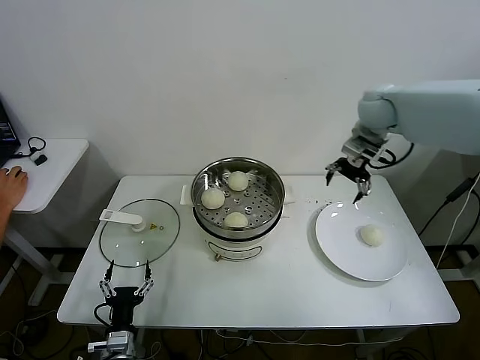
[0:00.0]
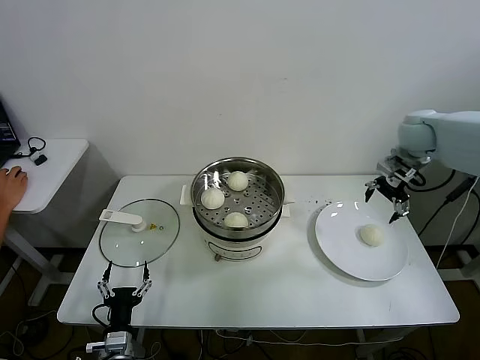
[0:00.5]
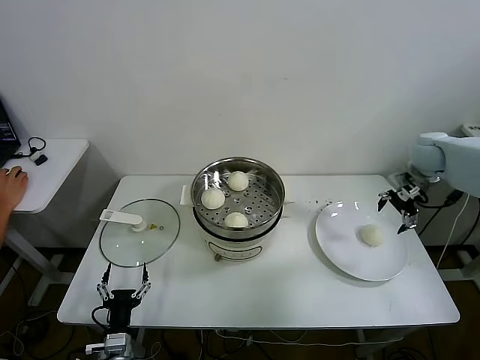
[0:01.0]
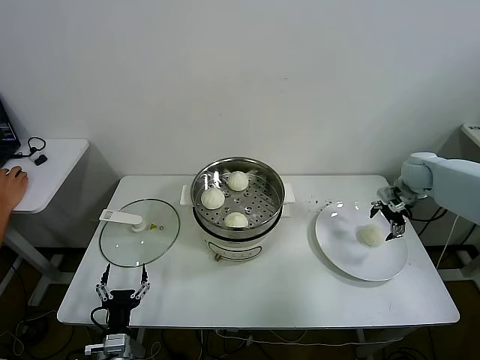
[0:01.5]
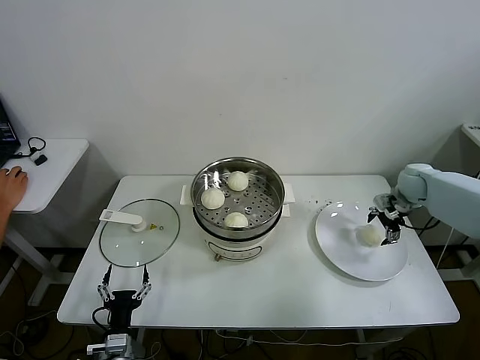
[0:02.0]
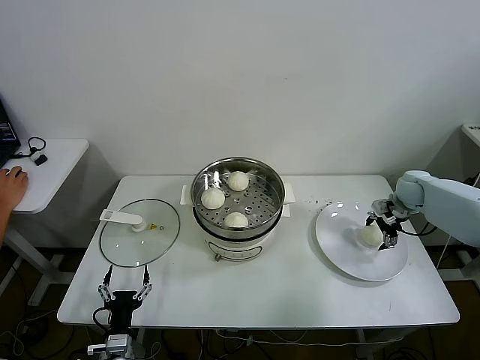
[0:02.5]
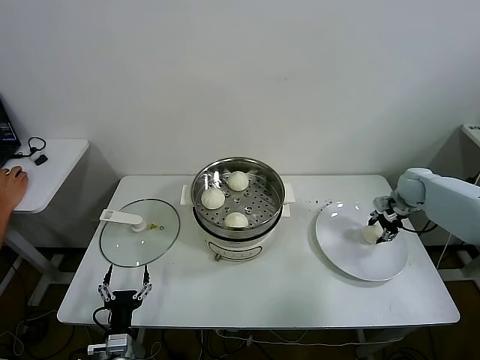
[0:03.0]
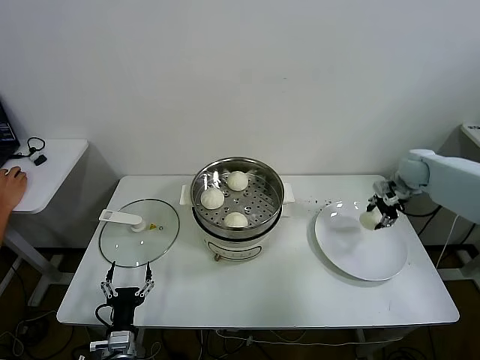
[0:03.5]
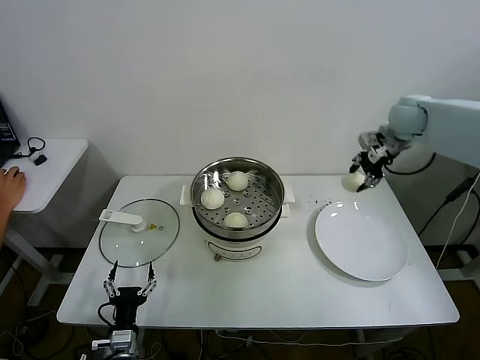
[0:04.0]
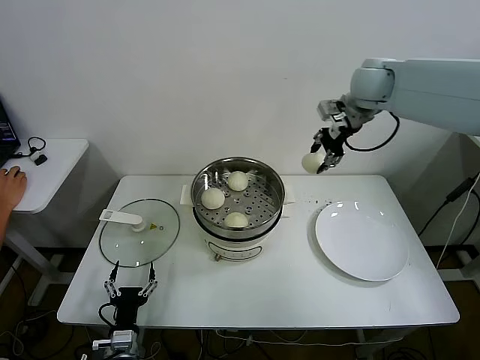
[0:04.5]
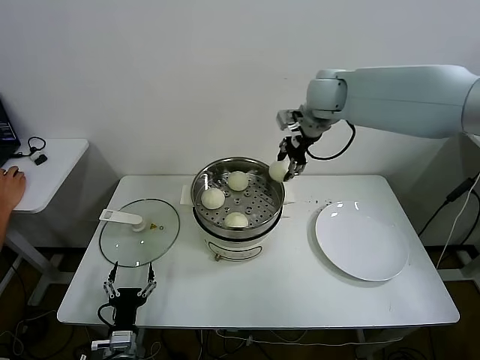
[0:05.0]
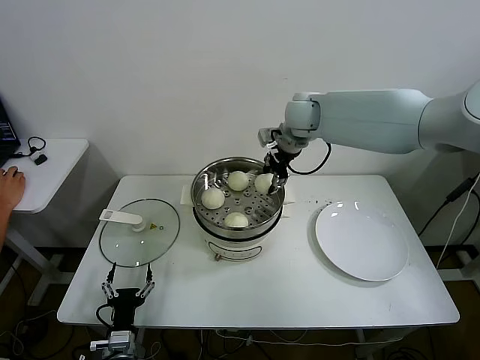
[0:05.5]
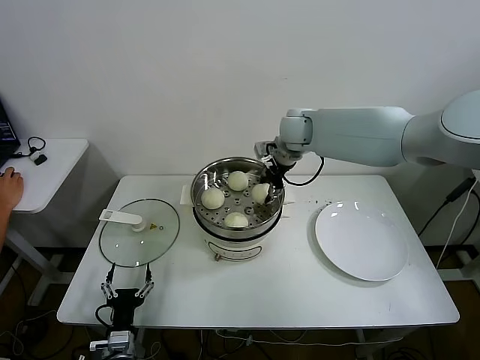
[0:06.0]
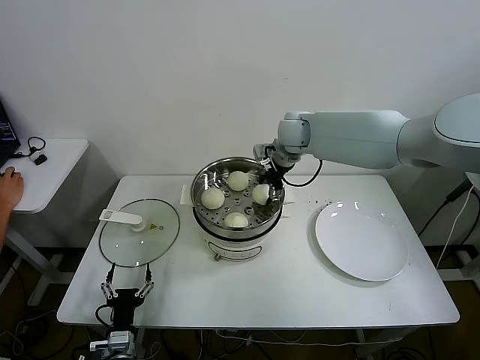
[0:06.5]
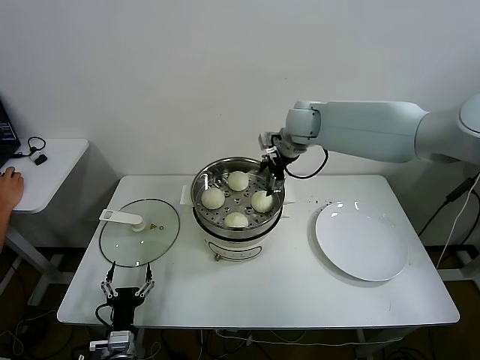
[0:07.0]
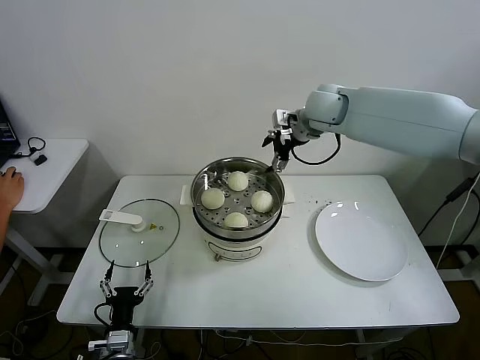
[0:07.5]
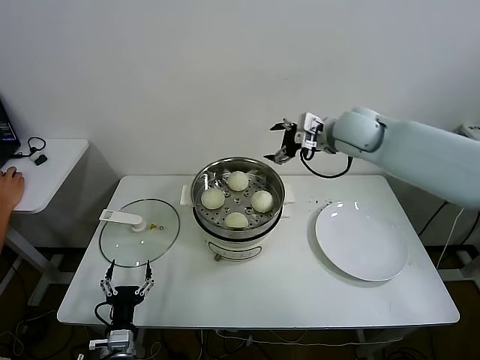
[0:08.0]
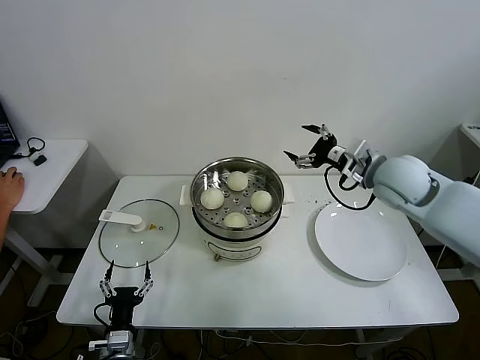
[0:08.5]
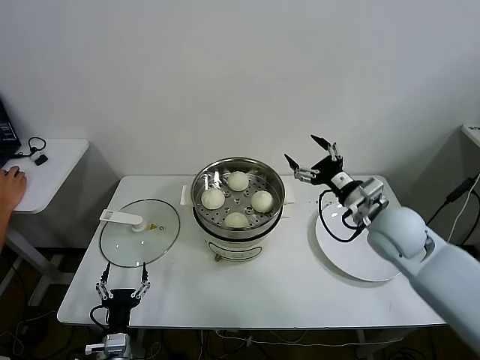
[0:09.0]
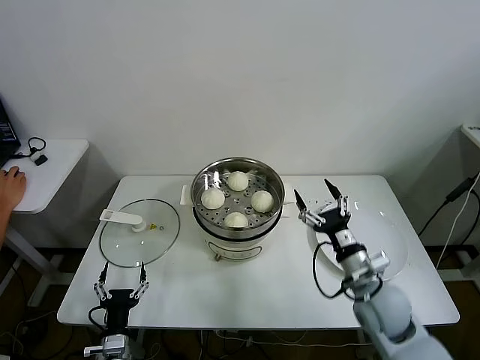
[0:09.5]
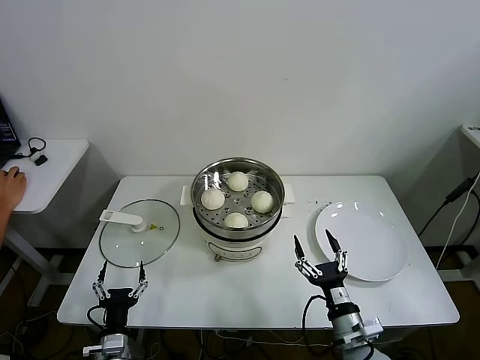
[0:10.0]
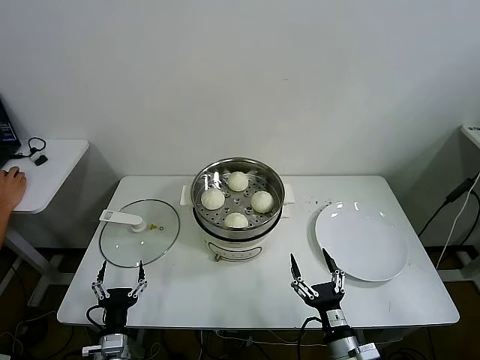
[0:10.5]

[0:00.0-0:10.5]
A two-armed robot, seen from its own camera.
Task of the whole recording: take steamed baozi put them in steamer.
Step, 0:00.0 to 0:02.5: Grasp the baozi in the plate with right gripper.
Step, 0:03.0 to 0:06.5: Place the baozi on the steamer with right gripper.
0:00.0 to 0:02.0: The right gripper is displaced downward and to the right by some 25 cm.
0:02.0 to 0:04.0: The right gripper is displaced upward and to the left by about 20 cm, and closes its fingers.
0:04.0 to 0:06.5: The right gripper heads to the left, covering approximately 25 cm, and opens its fingers.
0:06.5 to 0:08.5: The right gripper goes about 25 cm to the right and backward, and opens up.
0:08.5 to 0:10.5: The right gripper moves backward and downward, roughly 40 cm.
